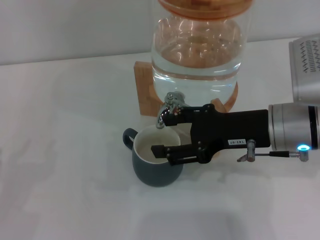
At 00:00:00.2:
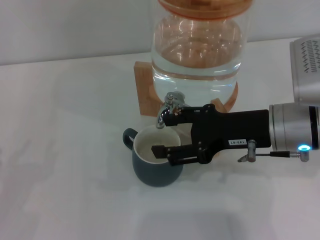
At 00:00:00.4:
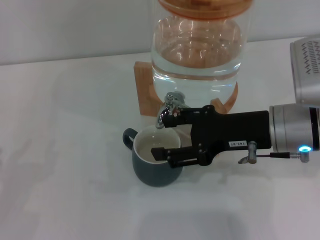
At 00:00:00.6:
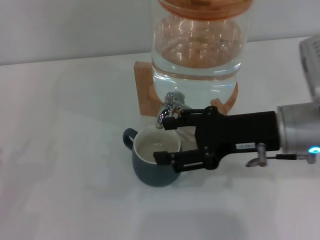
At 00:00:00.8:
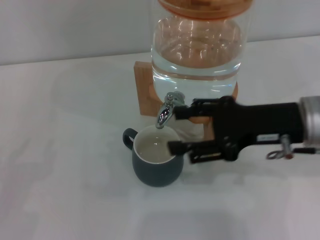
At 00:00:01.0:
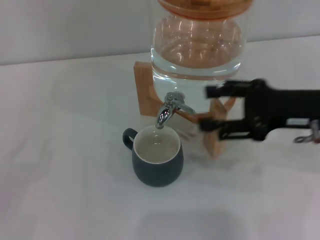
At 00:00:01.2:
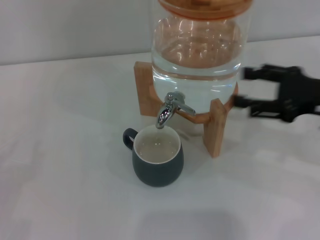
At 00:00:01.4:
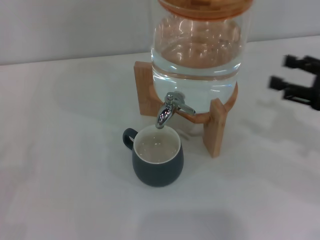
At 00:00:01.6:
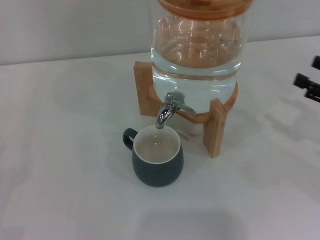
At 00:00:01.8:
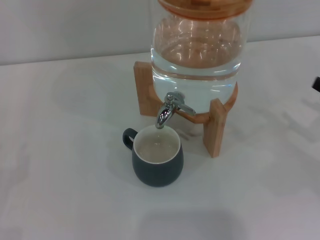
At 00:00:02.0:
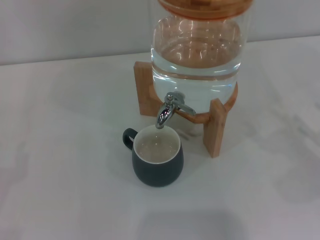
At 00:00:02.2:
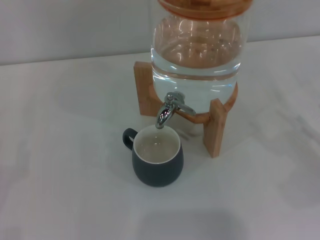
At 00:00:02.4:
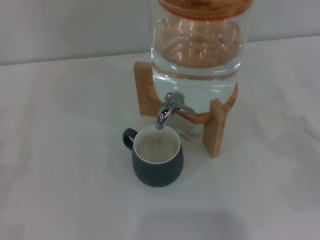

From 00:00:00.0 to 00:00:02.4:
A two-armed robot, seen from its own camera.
Task of the whole recording: the left gripper pick up the black cup and place it horizontally under the faucet, the right gripper turn on the faucet to fill the cup, and then turn off the faucet.
From 00:00:00.0 to 00:00:01.2: The right gripper goes some 10 cm to the right.
From 00:00:01.2 to 00:00:02.4: The right gripper shifts about 15 cm downward, to the right and backward.
